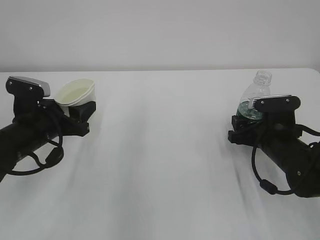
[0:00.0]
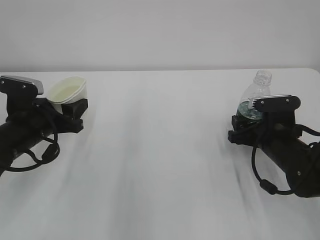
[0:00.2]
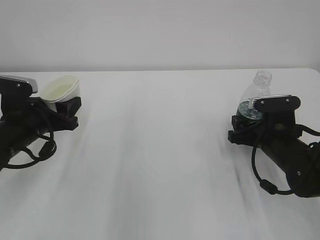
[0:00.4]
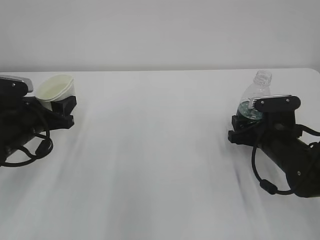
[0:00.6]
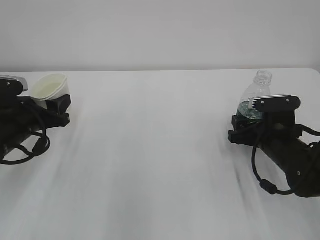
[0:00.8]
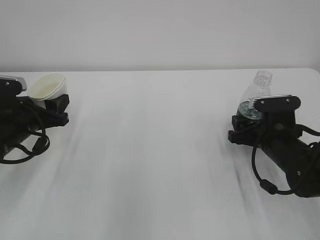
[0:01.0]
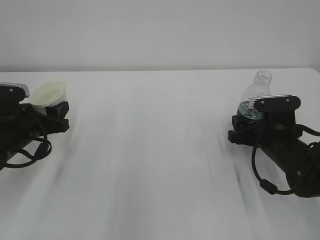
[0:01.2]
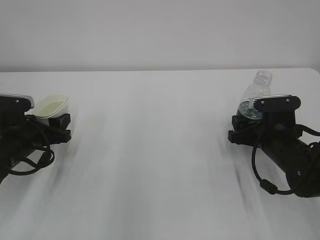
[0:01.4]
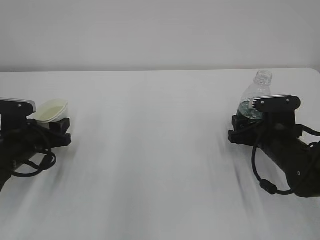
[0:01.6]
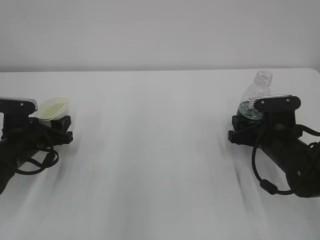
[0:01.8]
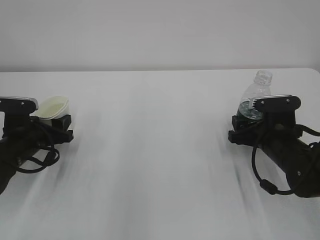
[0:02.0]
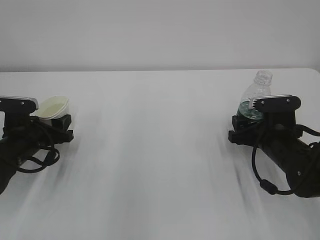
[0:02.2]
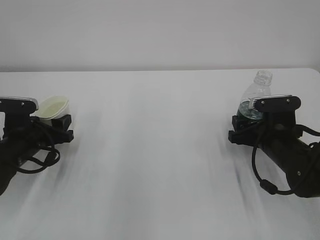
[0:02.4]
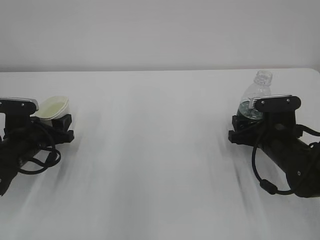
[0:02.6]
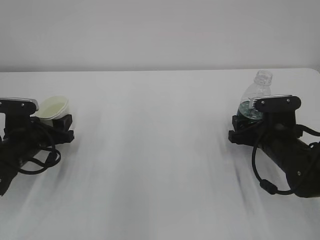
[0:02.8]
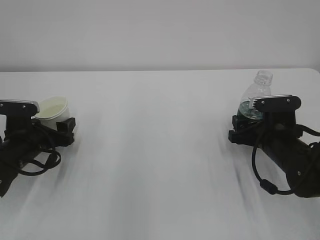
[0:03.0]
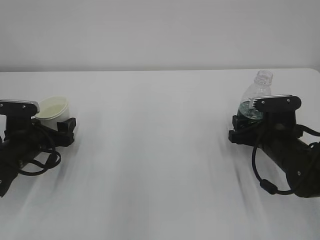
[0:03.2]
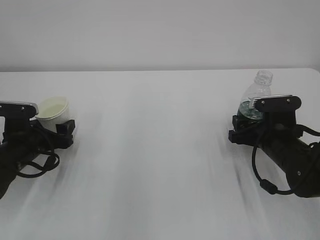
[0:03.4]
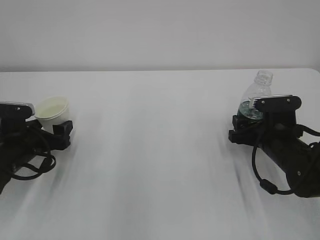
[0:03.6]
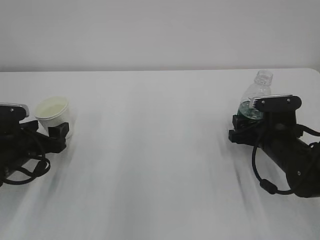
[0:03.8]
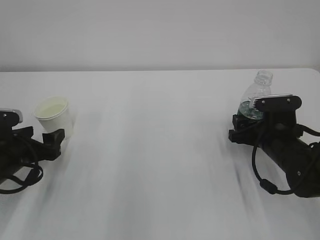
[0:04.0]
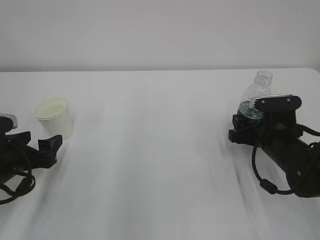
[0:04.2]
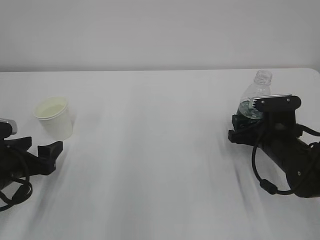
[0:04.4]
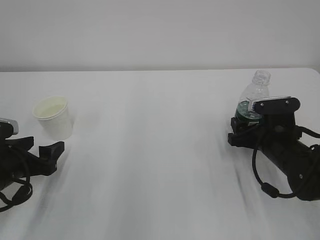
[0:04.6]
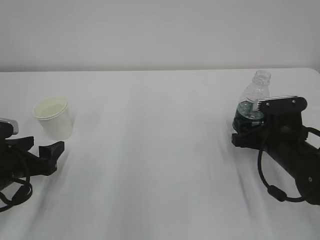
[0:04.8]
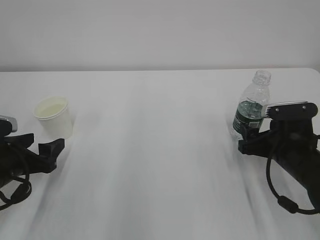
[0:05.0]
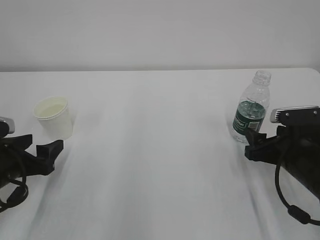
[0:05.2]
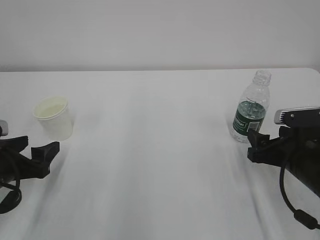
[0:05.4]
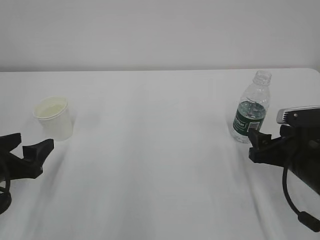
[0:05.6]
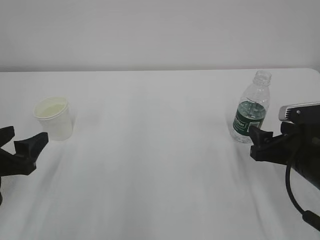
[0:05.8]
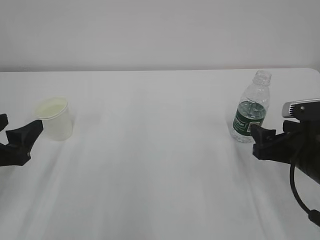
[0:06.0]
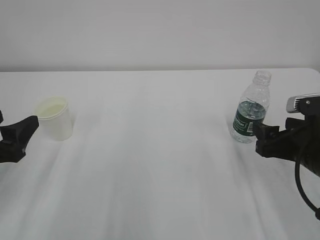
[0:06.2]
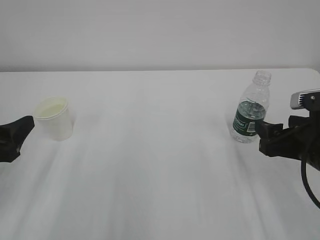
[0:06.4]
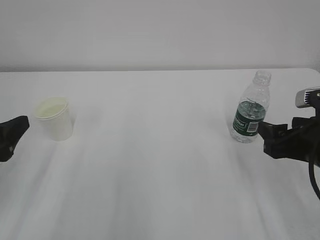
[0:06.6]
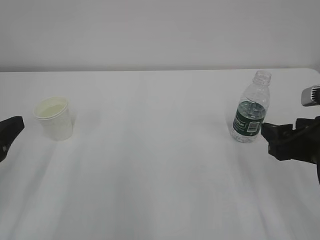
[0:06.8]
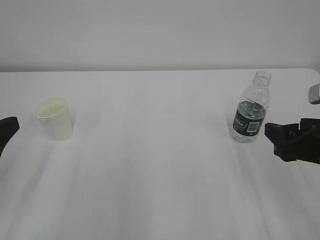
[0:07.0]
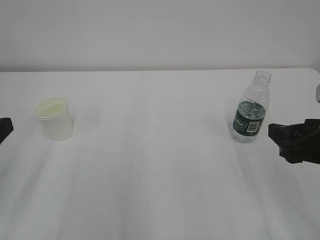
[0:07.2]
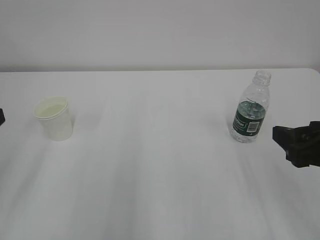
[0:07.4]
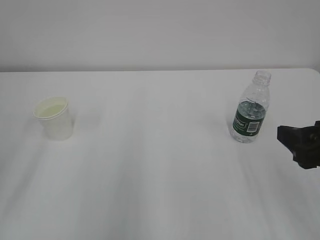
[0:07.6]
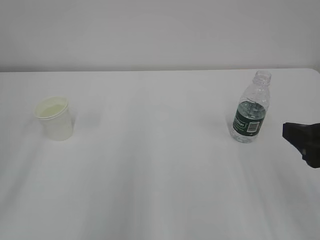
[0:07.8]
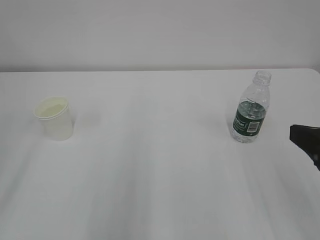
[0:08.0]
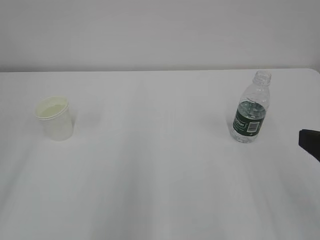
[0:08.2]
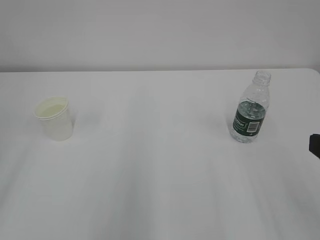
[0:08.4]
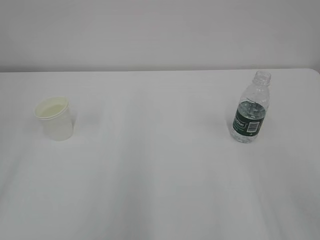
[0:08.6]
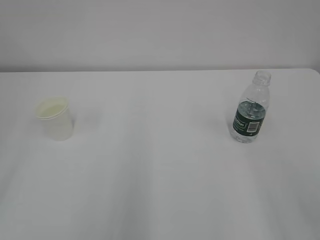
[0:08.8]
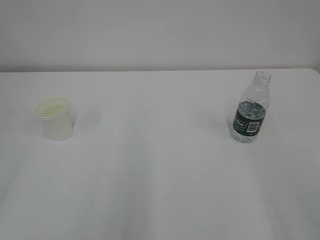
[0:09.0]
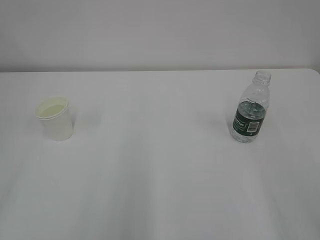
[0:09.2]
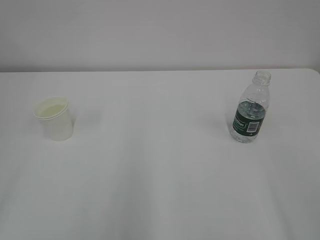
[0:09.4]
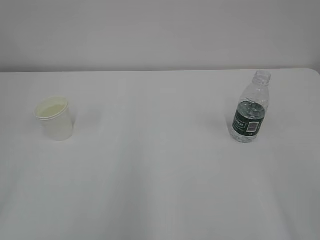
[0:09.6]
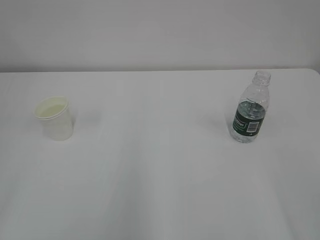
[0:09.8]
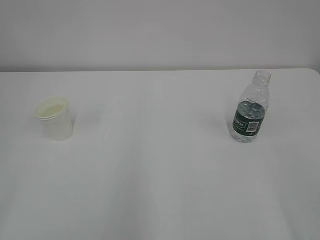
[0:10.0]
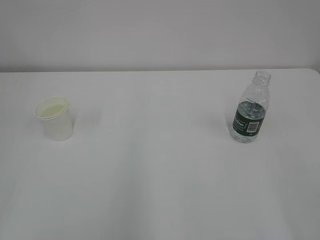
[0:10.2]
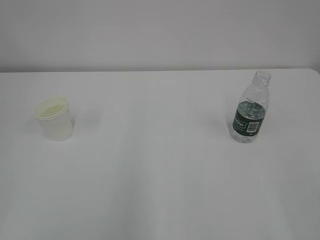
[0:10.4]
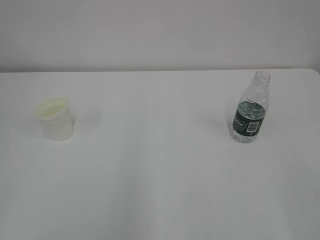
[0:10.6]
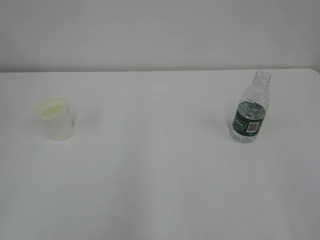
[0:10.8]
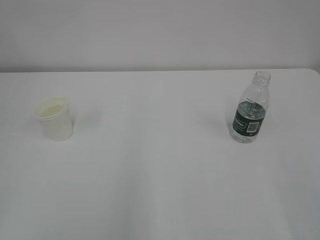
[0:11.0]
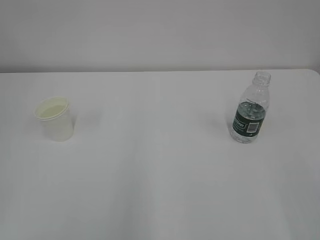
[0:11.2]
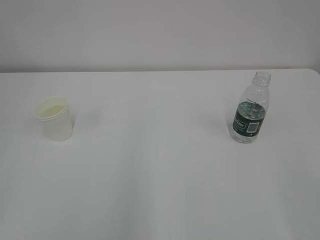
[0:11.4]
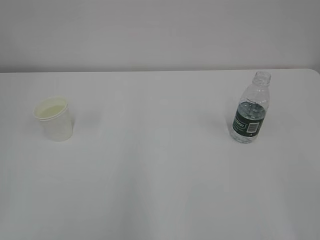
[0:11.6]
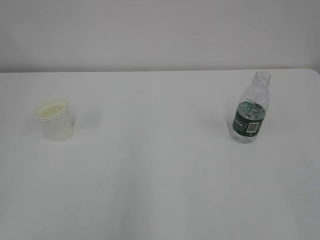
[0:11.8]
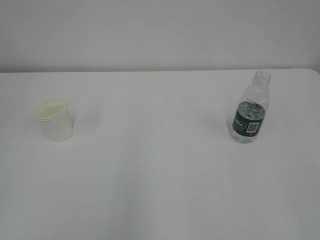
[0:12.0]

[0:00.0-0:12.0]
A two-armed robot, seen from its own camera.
0:00.0 to 0:01.6: The left gripper ends up approximately 5 cm from where it was.
0:01.6 to 0:03.0: The left gripper opens its fingers.
0:03.0 to 0:04.4: The left gripper travels backward by approximately 10 cm.
0:04.4 to 0:06.0: The right gripper is displaced backward by about 10 cm, while the left gripper travels upward by some 5 cm.
0:06.0 to 0:07.6: Both grippers move upward and backward, roughly 10 cm.
0:07.6 to 0:09.0: The right gripper goes about 10 cm backward and upward.

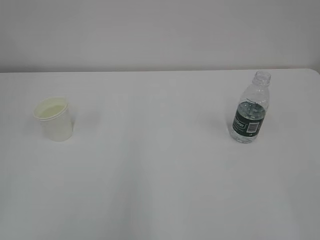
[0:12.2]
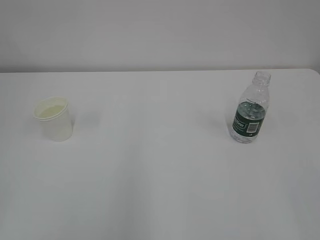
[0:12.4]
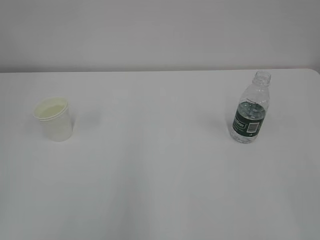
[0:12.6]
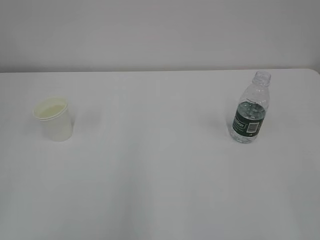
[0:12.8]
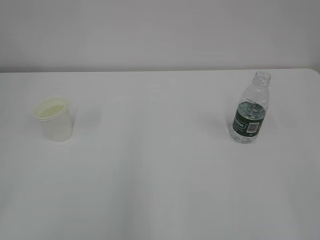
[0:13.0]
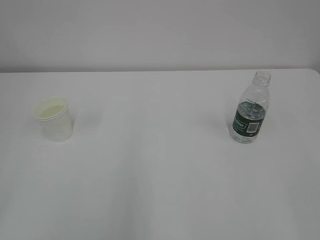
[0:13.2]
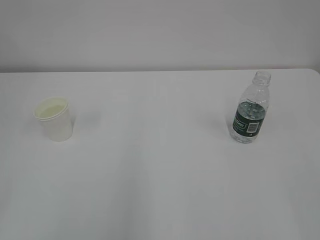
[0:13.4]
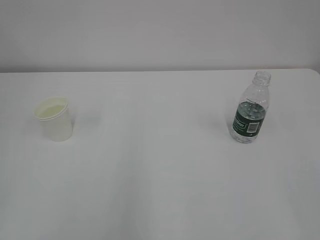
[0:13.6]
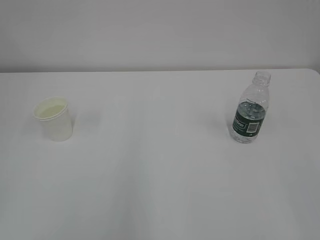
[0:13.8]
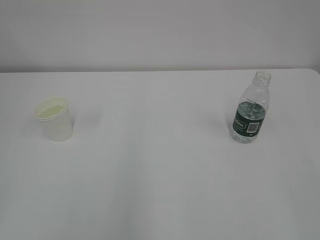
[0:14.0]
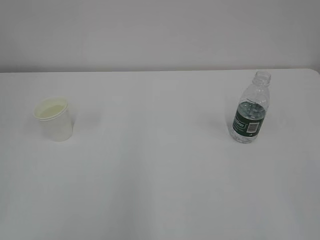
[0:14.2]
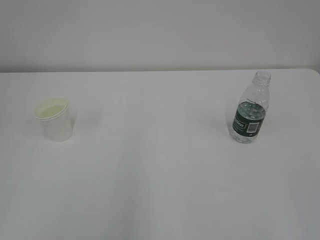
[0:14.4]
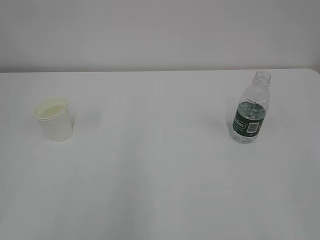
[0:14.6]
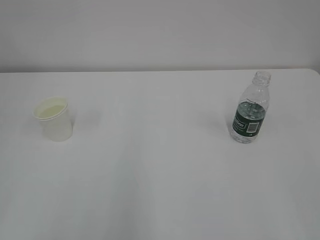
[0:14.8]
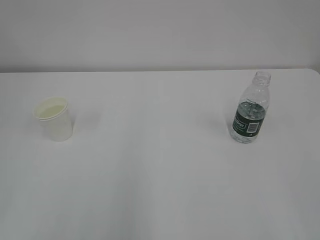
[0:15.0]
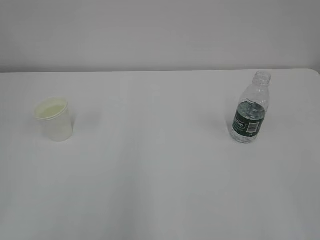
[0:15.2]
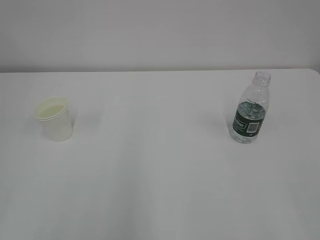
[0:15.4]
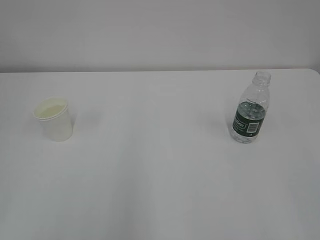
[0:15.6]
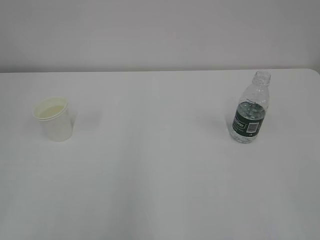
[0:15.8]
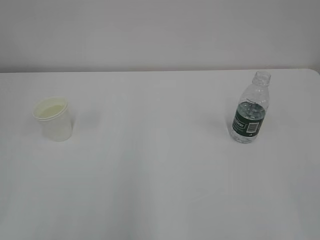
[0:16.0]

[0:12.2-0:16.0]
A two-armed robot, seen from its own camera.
0:14.8 to 0:16.0: Both grippers stay about where they are.
